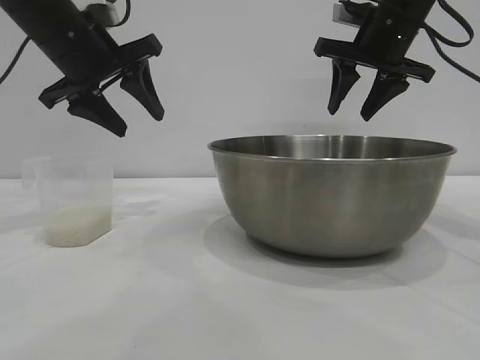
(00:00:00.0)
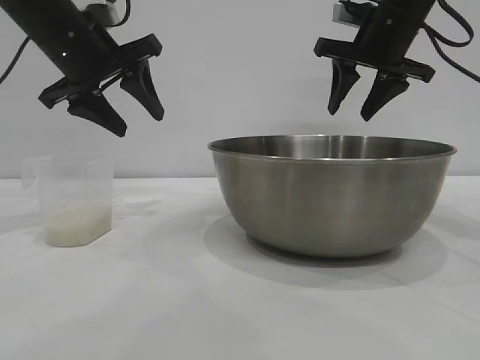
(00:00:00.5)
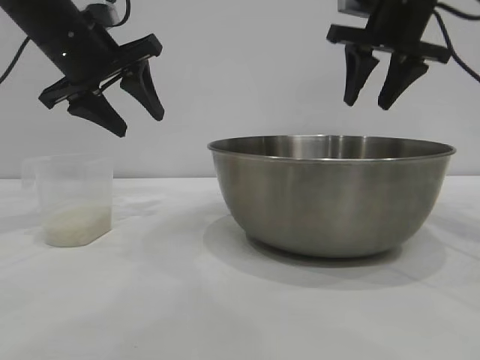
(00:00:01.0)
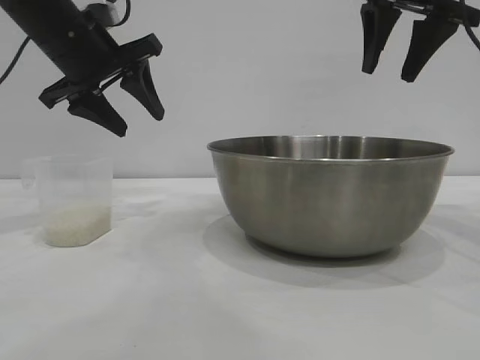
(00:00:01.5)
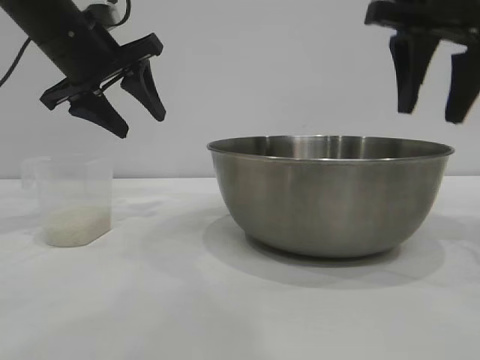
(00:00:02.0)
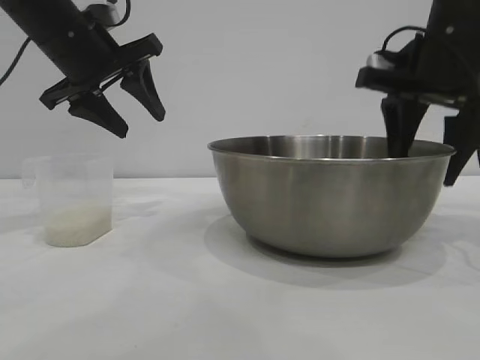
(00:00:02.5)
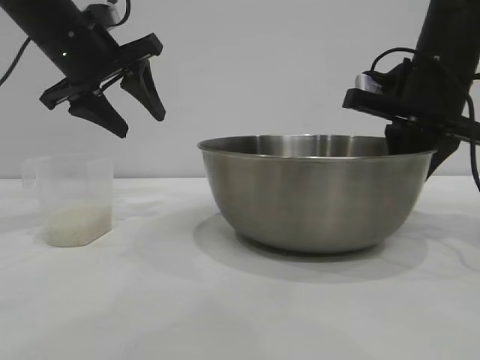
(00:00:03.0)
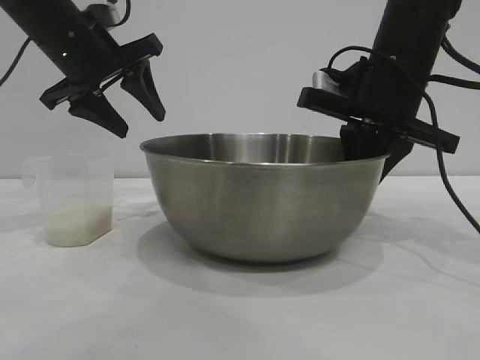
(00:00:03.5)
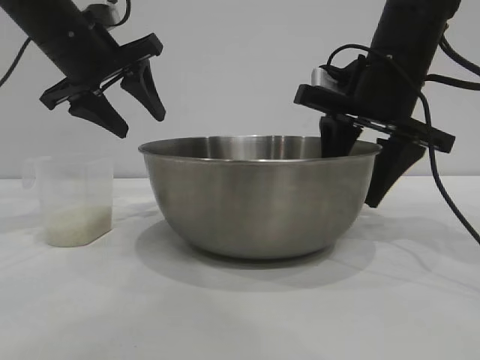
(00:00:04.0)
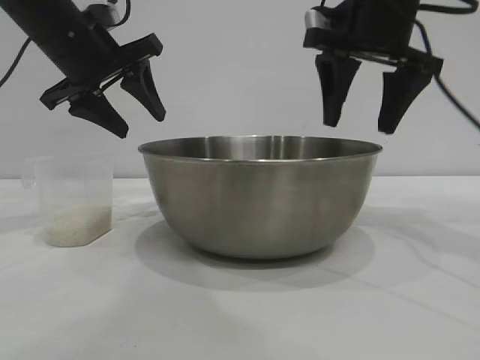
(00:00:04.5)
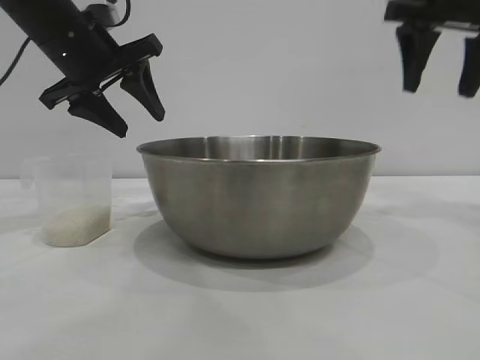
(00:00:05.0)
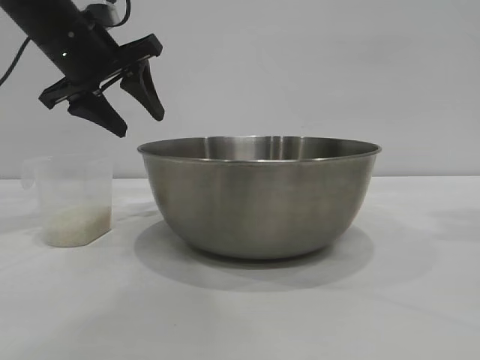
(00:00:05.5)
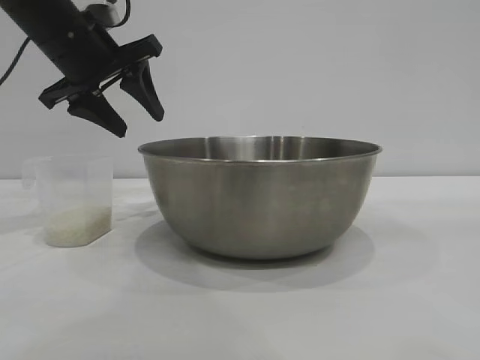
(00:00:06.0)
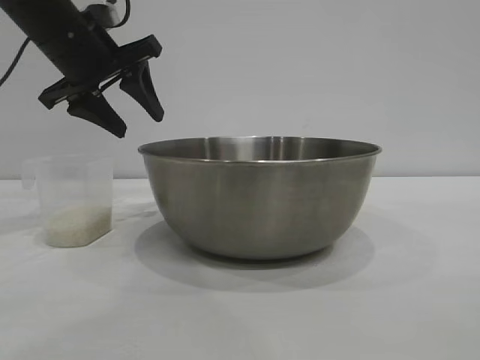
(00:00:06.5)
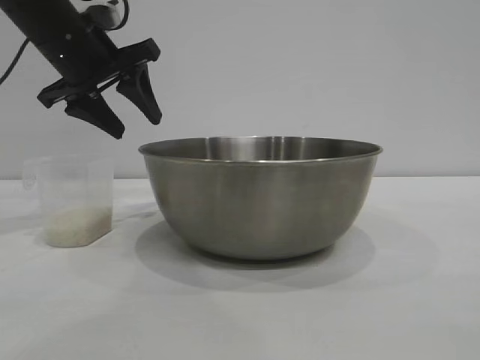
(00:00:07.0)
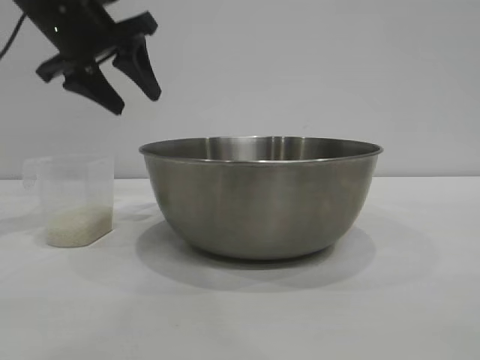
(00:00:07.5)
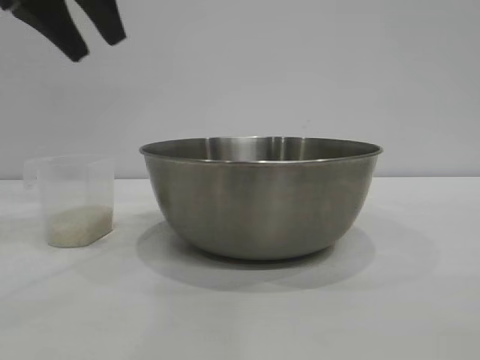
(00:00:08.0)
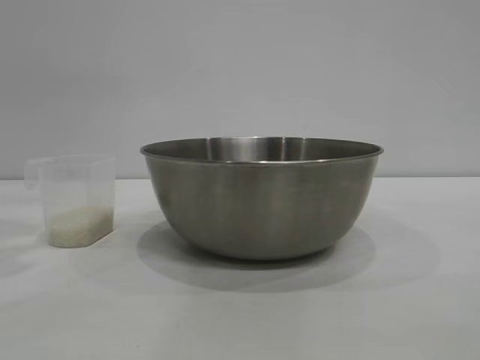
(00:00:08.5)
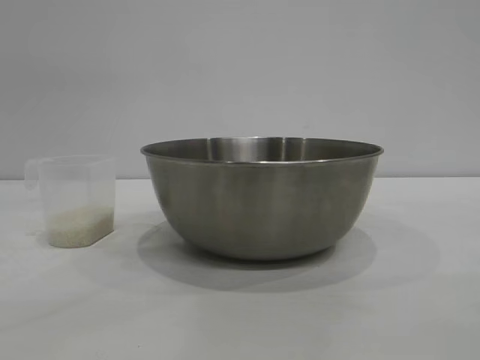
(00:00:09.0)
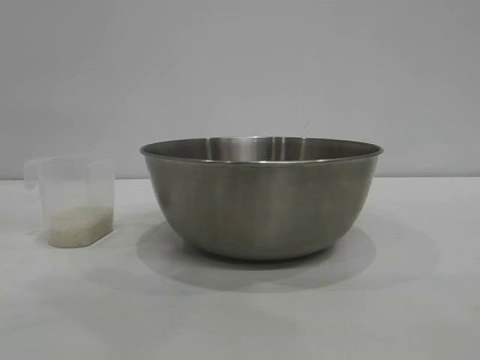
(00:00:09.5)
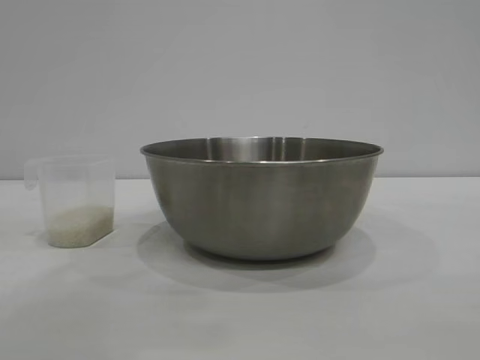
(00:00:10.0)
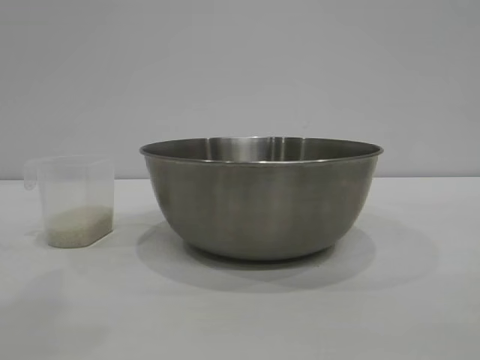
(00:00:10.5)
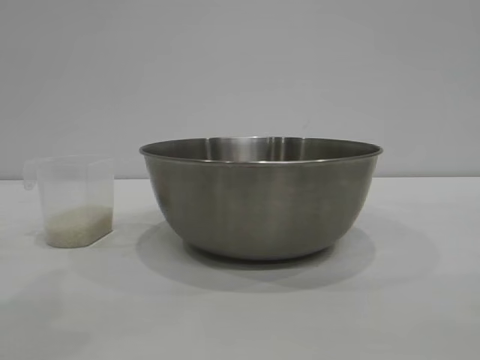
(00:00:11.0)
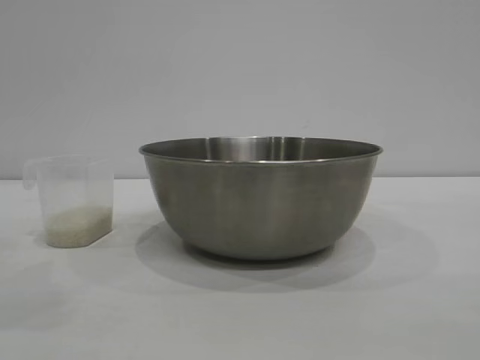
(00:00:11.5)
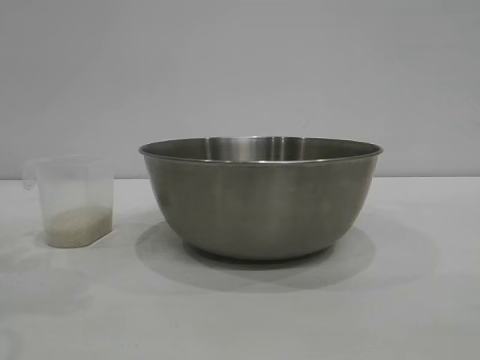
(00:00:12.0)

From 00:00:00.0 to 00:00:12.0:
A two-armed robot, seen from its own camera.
Task of the whole recording: the right gripper grasp the rice container and place it in the center of the table, the left gripper grasp the rice scoop and pour the rice into the rice container.
Step, from 00:00:00.0 to 00:00:04.5: Move the bowl to the center of view with the right gripper.

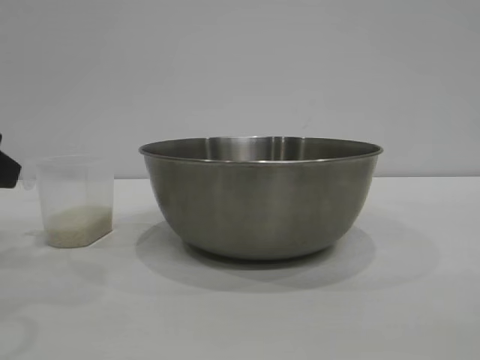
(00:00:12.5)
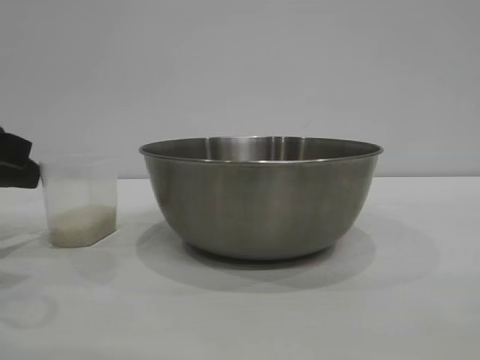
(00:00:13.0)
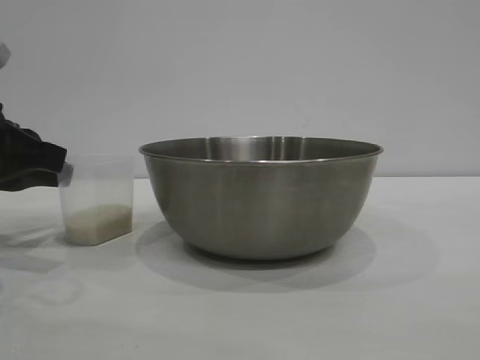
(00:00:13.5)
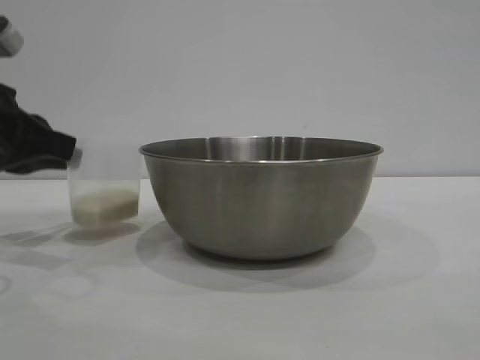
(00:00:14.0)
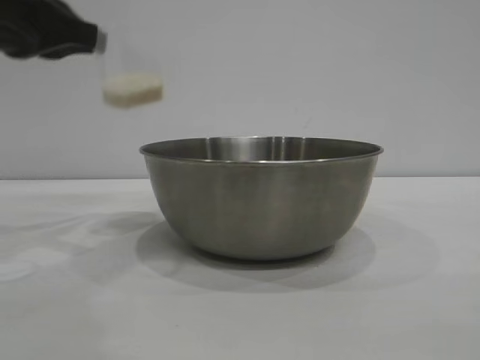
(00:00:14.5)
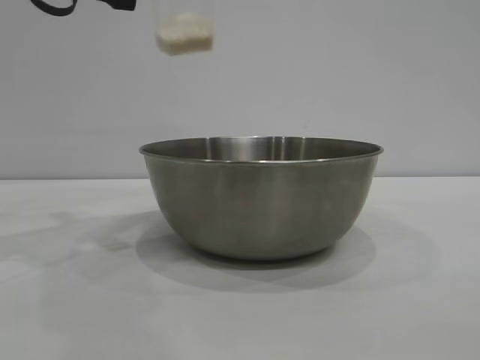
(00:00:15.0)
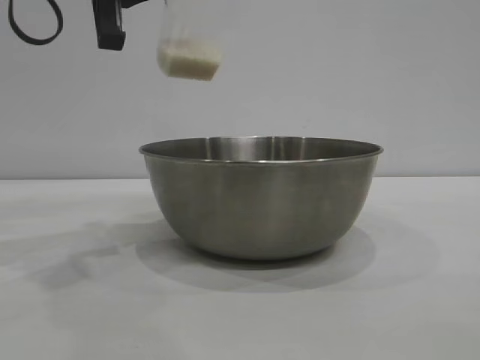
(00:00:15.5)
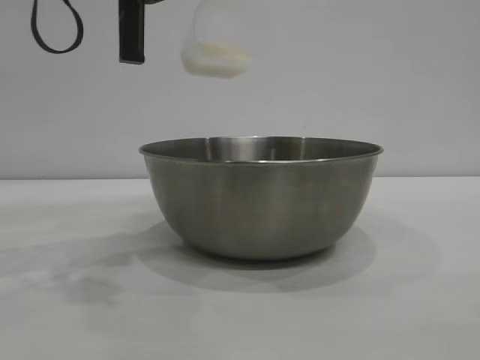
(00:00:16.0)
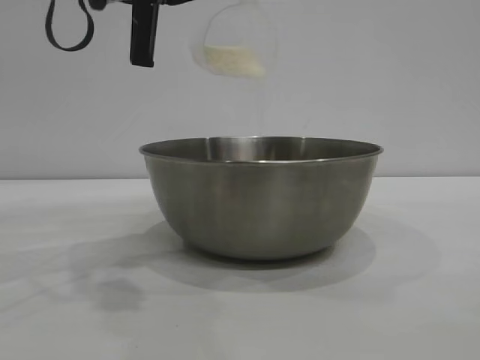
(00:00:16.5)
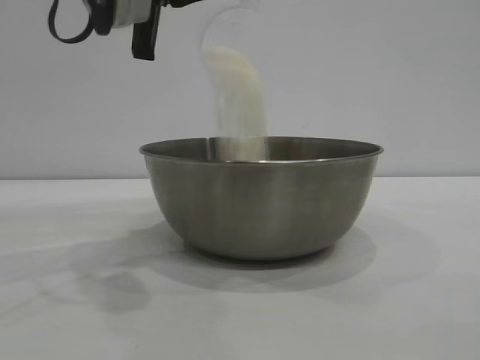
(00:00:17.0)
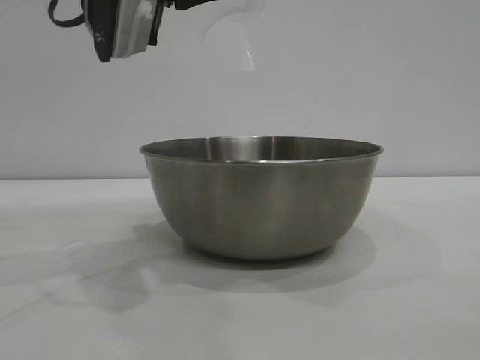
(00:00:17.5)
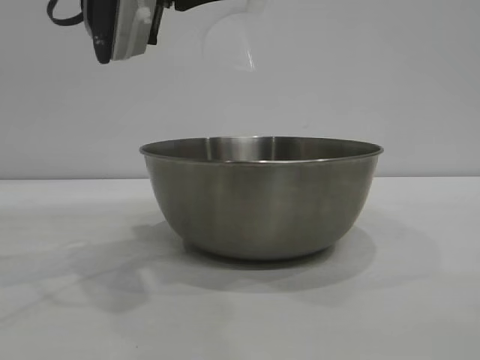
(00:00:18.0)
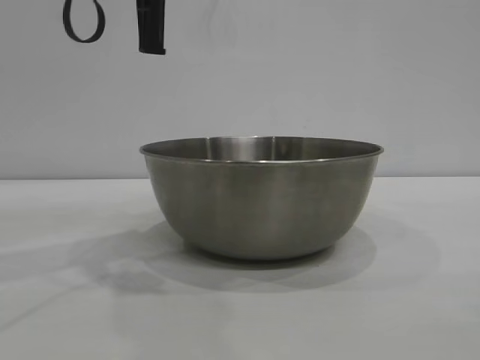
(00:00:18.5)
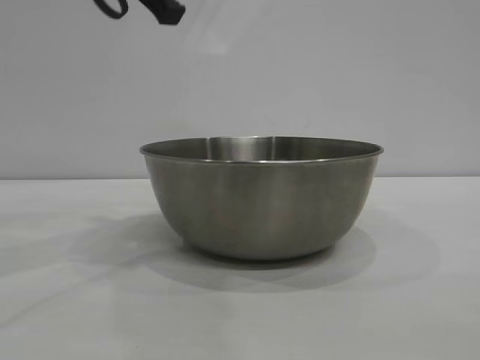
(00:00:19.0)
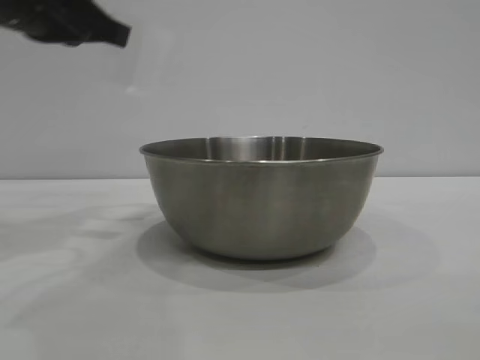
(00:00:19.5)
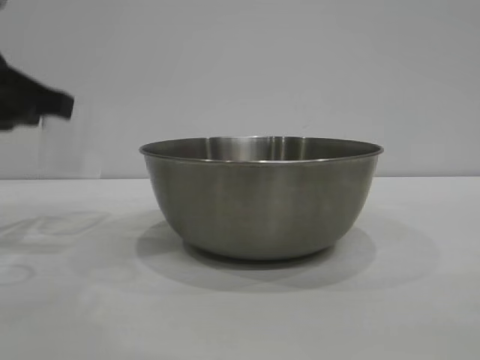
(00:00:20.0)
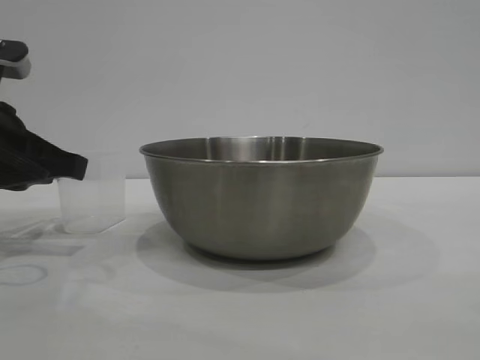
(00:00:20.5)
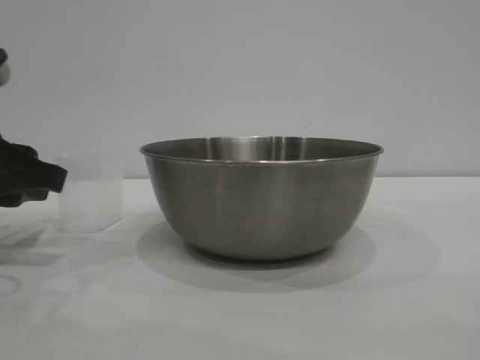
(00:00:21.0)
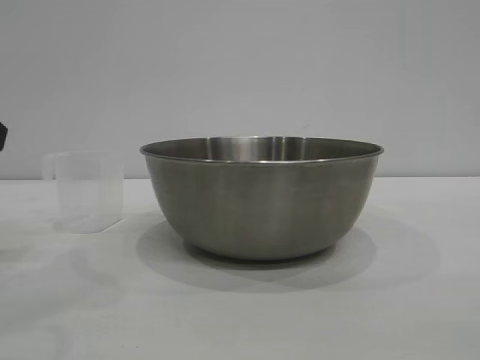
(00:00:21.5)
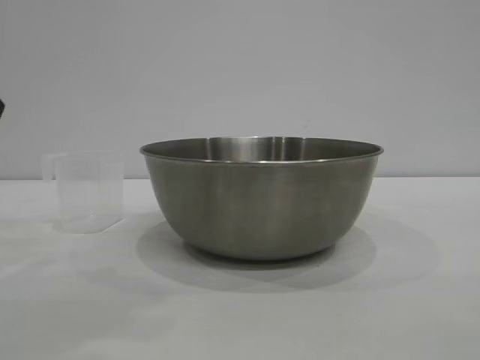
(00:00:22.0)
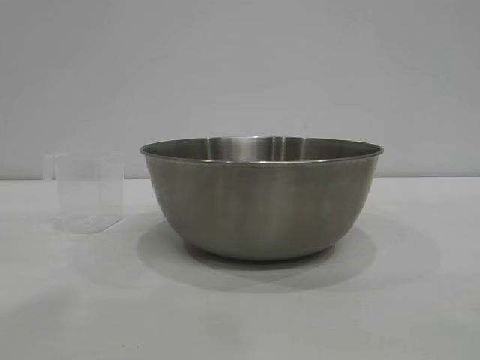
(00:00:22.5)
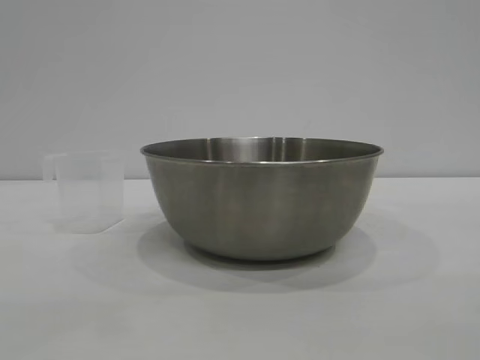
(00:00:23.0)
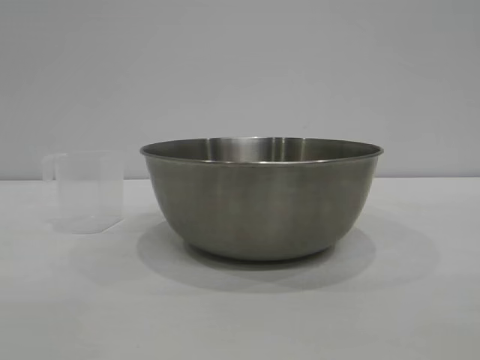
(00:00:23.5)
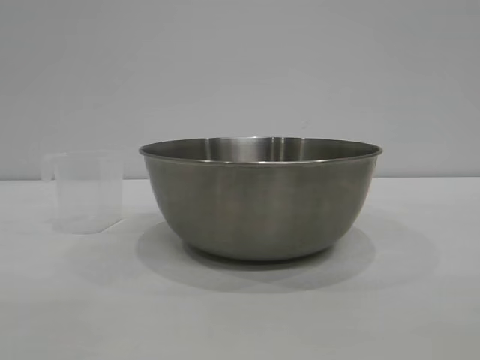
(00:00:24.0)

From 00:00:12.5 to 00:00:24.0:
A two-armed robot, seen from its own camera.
Task of the whole recording: the right gripper grasp the rice container and place it in the center of the table, the left gripper grasp the rice scoop and pour the rice into the rice container.
Step, from 00:00:14.5 to 00:00:17.0: Pour the rice from the cup into the bowl with the left gripper.
Step, from 00:00:17.5 to 00:00:21.0: Place the cup on the table with the left gripper.
